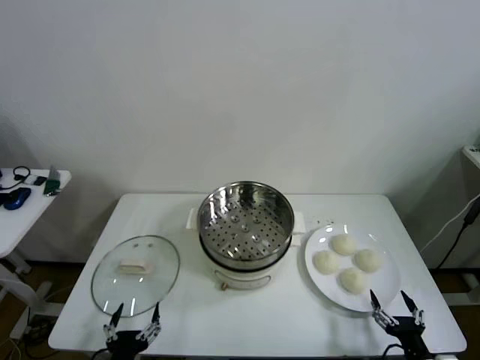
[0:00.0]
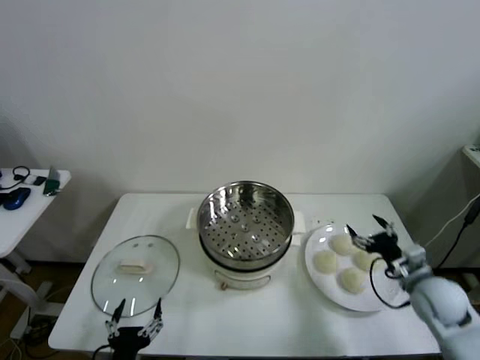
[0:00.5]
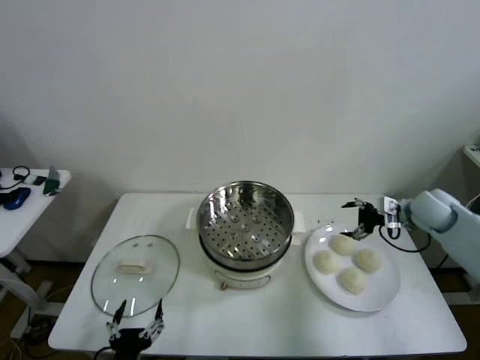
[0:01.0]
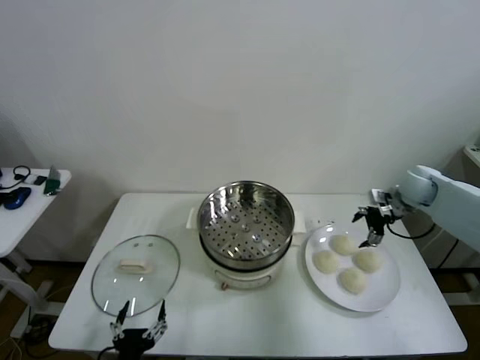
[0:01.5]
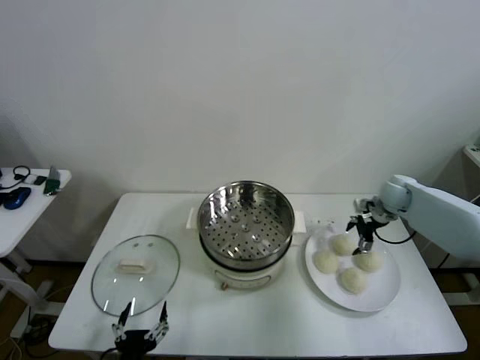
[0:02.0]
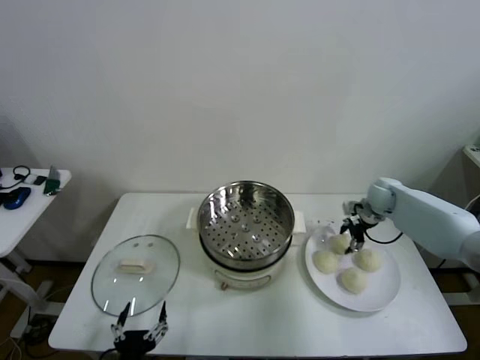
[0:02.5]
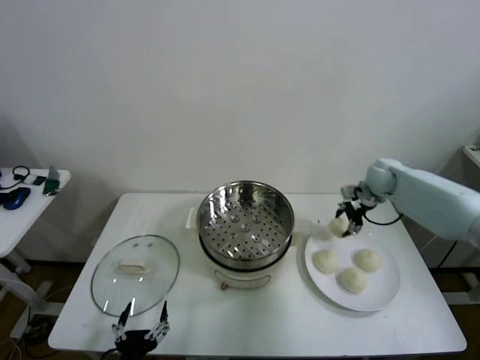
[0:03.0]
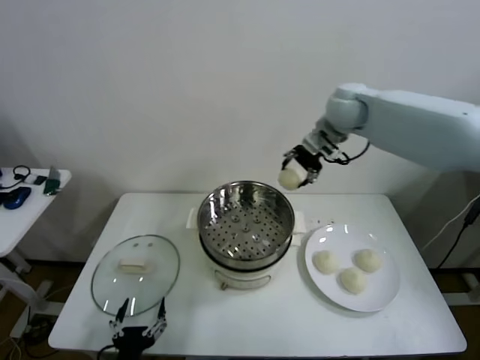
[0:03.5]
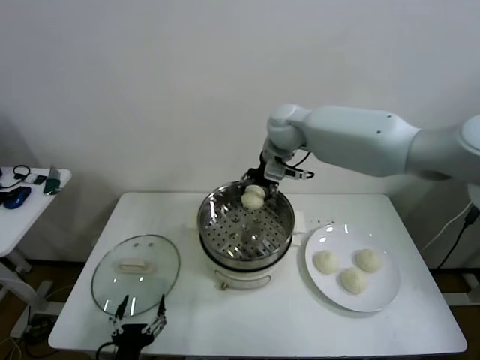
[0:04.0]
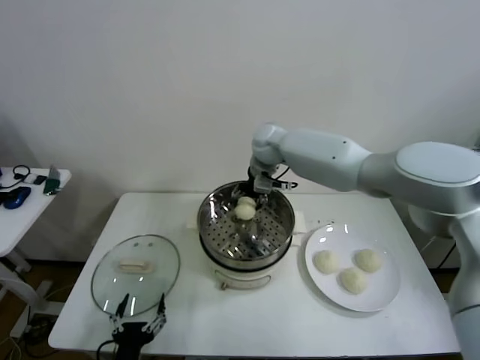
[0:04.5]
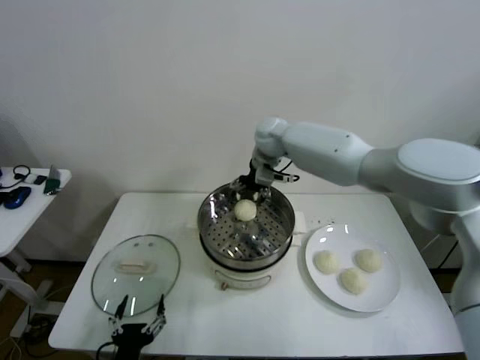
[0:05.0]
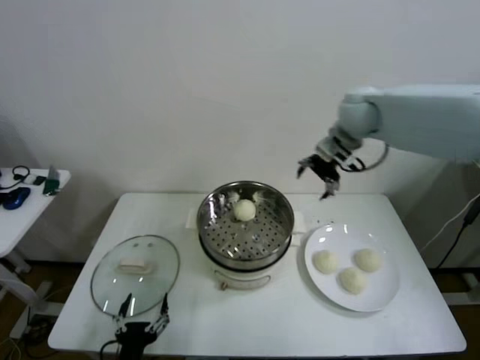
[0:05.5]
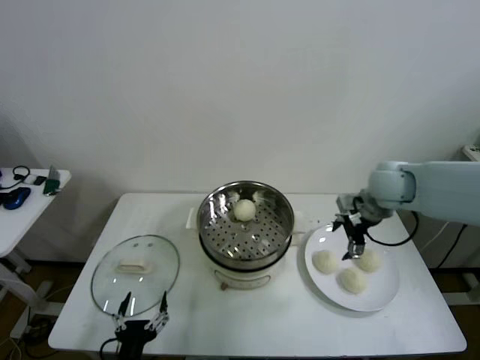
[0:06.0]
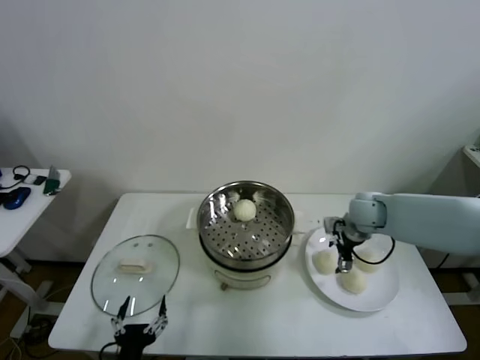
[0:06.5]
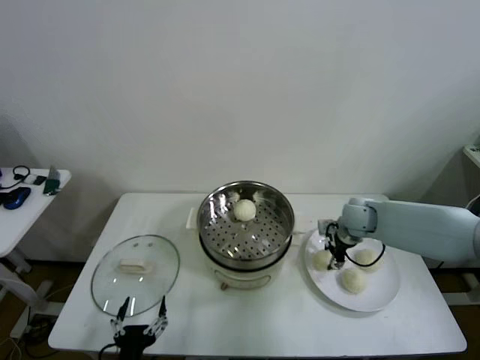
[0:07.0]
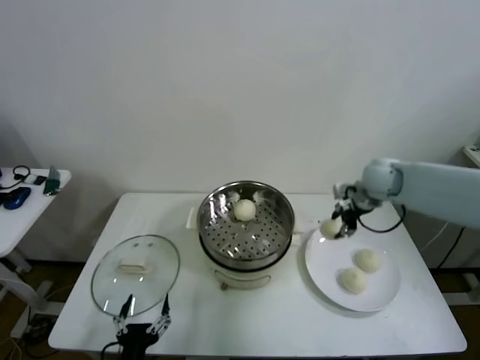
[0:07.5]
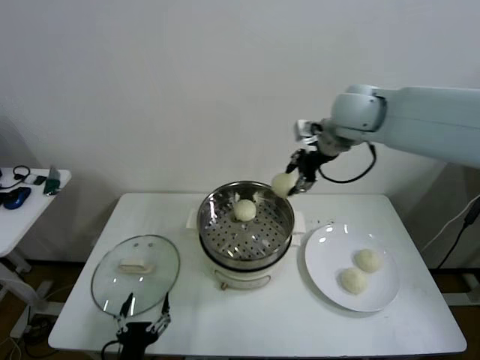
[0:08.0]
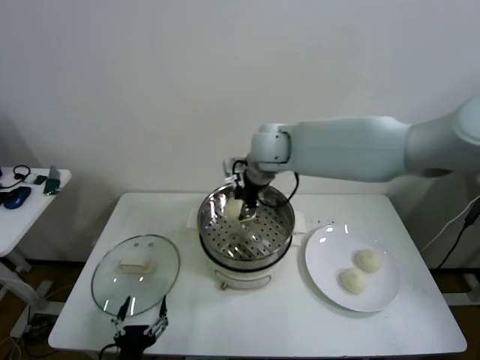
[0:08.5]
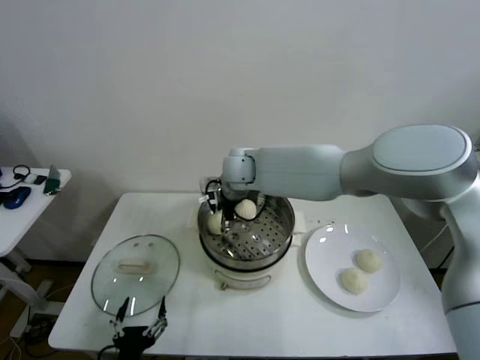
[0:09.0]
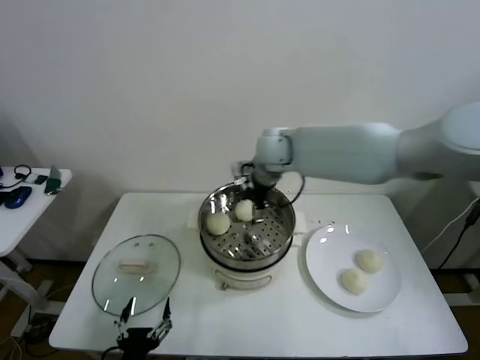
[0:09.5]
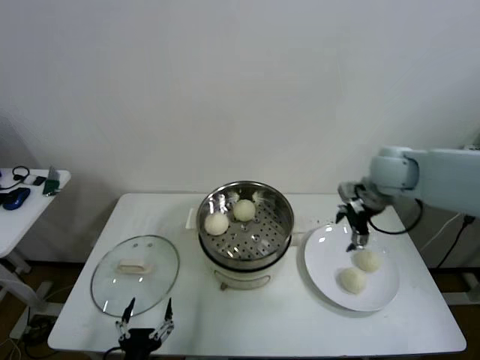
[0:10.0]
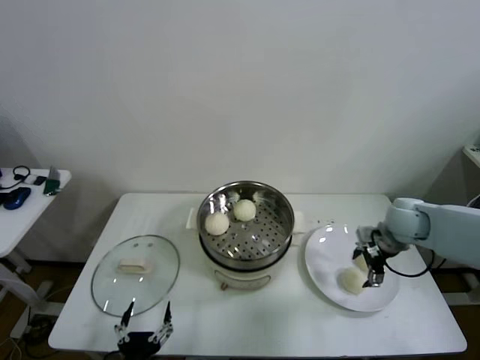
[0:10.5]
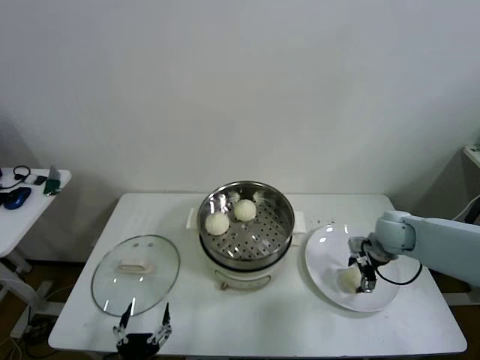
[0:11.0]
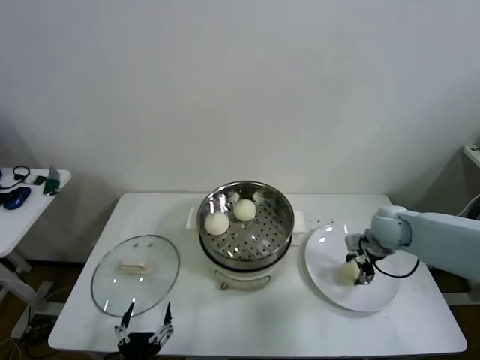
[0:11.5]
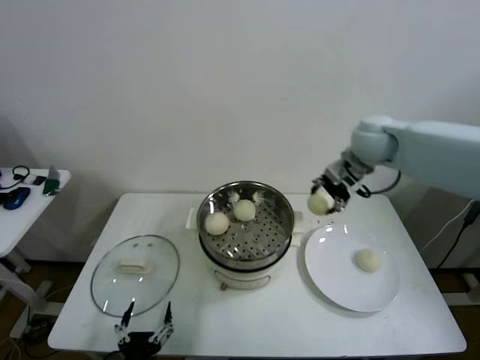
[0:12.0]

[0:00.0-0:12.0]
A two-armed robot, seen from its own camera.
Step, 0:00.0 to 0:02.0: Grasp the baozi in the plate with right gripper.
Step, 0:02.5 to 0:04.5: Place the baozi on the steamer with right gripper.
Step, 0:05.0 to 0:06.5: Grasp the baozi in the plate with right gripper.
Step, 0:07.0 to 0:09.0: Place the baozi on the steamer with right gripper.
Step, 0:09.5 to 0:11.0: Grasp the baozi in the plate with right gripper.
0:02.0 to 0:04.0: The right gripper heads to the left and upward, covering about 35 cm, and closes its fingers.
0:04.0 to 0:06.0: The right gripper heads to the right and backward, covering some 25 cm, and opens its fingers.
0:06.0 to 0:08.0: The right gripper heads upward and to the left, covering roughly 20 cm, and closes.
0:08.0 to 0:10.0: The right gripper travels to the right and downward by about 20 cm, and opens.
0:10.0 to 0:12.0: The right gripper moves upward and to the left, approximately 10 cm, and closes.

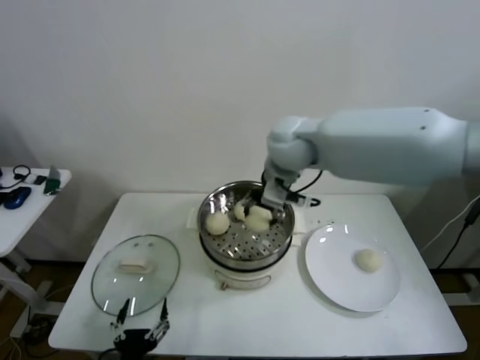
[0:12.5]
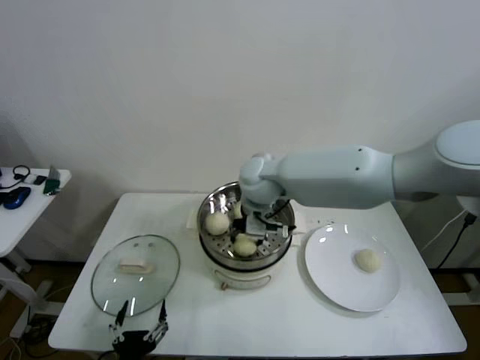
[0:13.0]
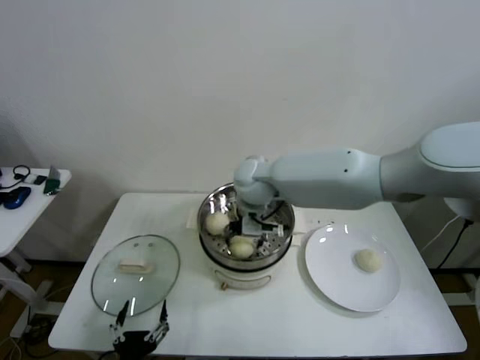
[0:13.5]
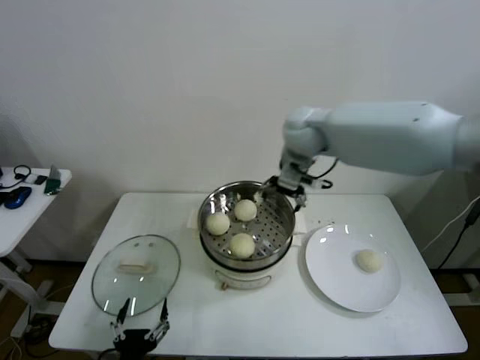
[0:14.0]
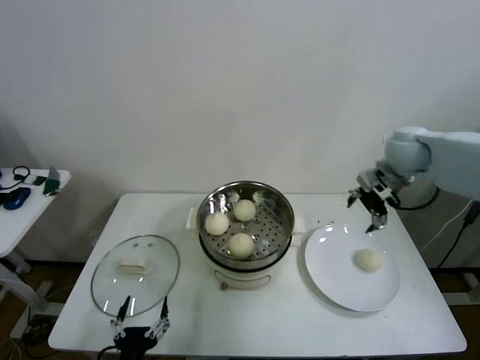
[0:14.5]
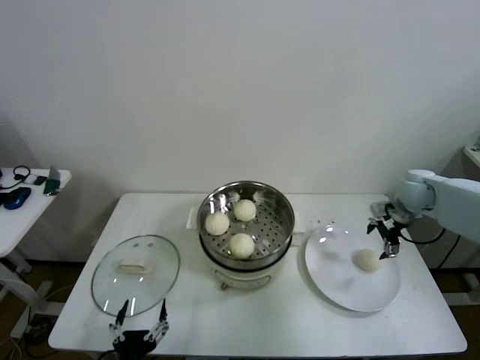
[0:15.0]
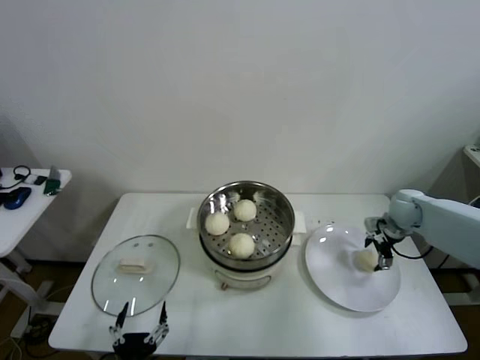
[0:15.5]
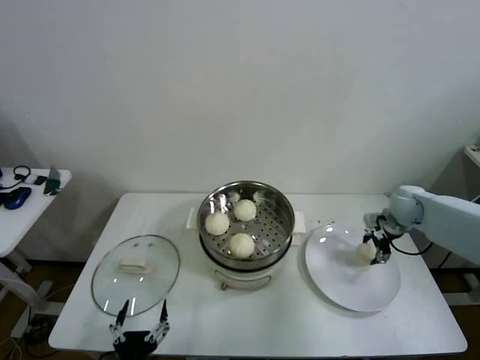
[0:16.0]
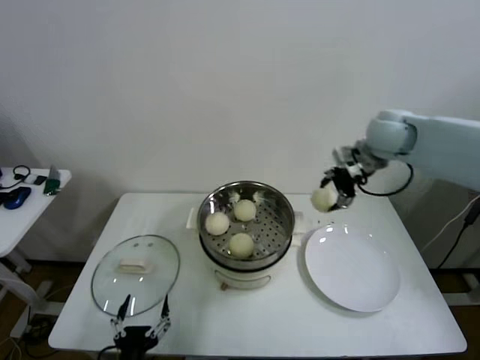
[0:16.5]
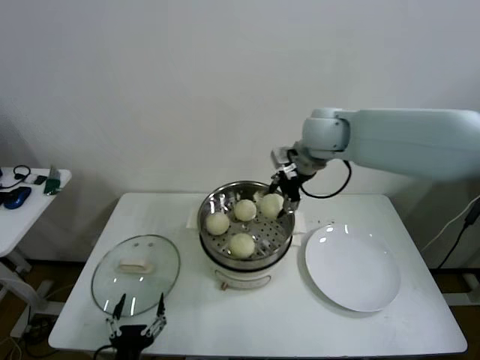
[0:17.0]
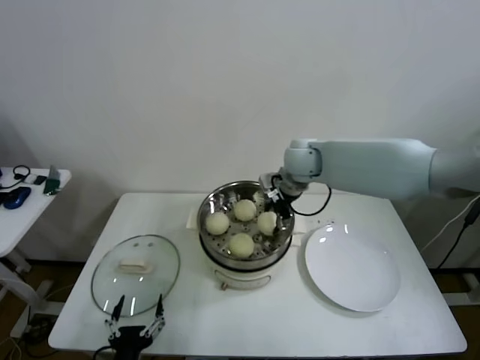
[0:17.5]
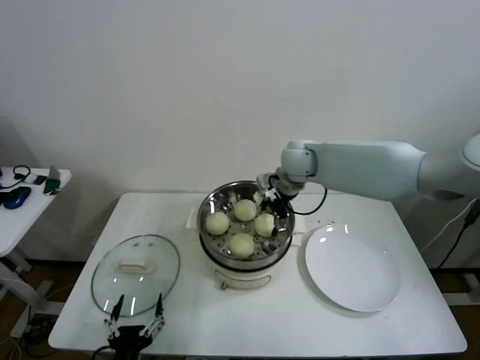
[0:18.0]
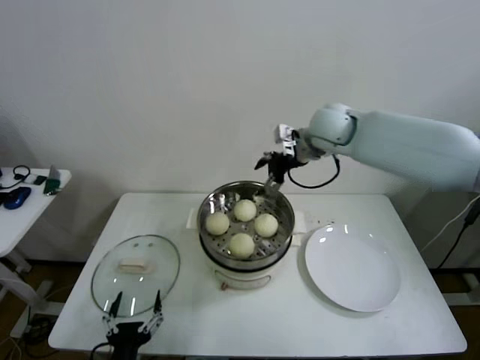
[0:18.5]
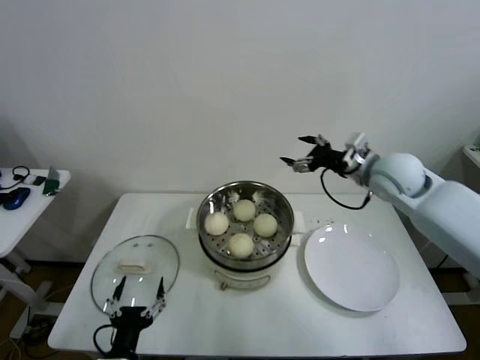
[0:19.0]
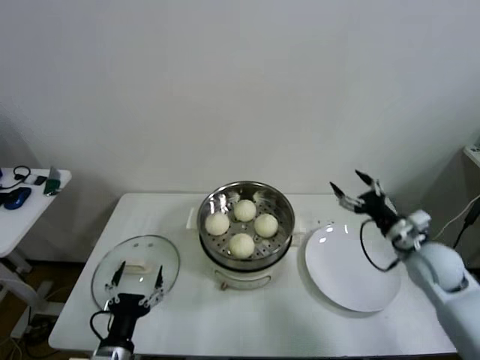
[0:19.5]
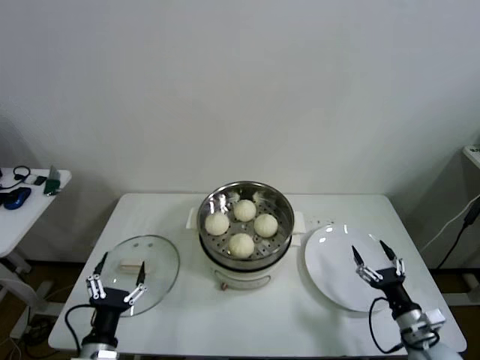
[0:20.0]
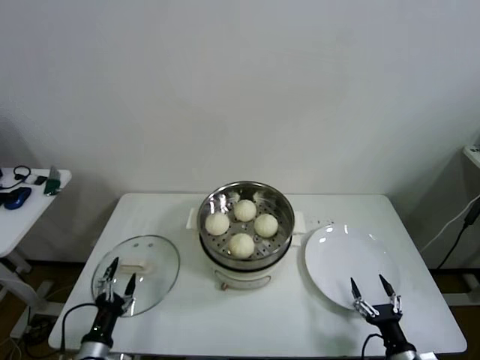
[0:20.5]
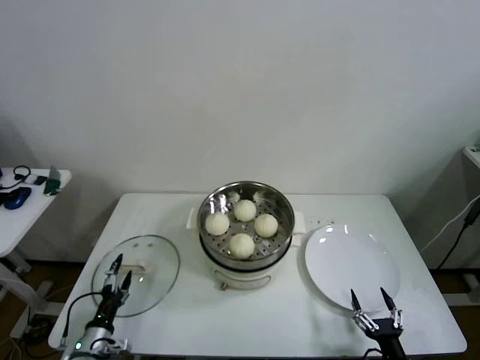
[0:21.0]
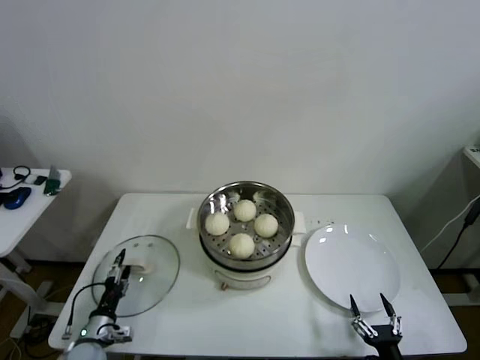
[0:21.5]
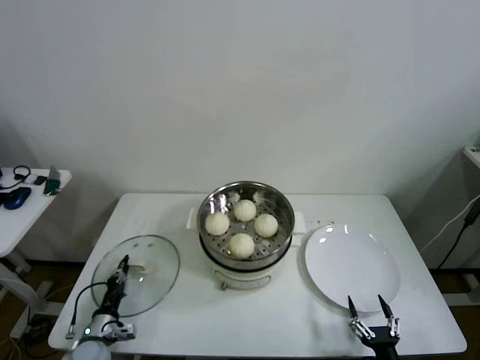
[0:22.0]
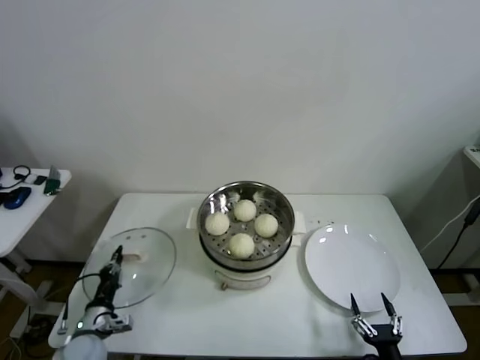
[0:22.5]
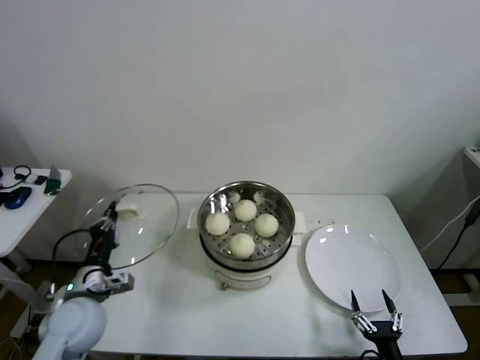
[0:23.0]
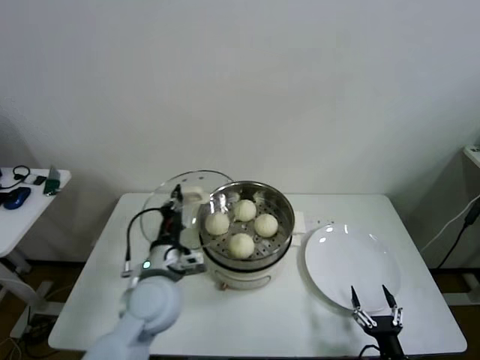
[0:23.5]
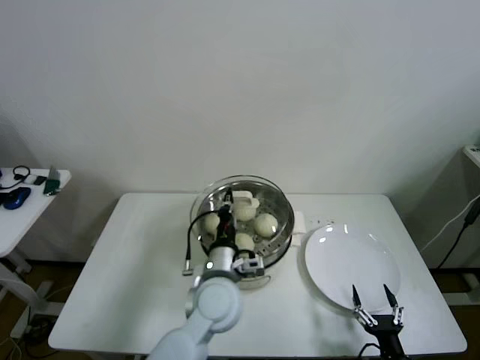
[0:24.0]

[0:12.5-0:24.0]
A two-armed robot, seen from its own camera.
Step, 0:13.5 to 0:15.5: Grasp the baozi in the plate with right gripper.
Step, 0:16.0 to 0:17.5: Place the baozi on the steamer with right gripper.
Step, 0:18.0 to 0:22.0: Grasp the pot lid with left gripper.
0:12.5 to 0:14.5: The right gripper goes roughly 30 cm to the right, and opens.
0:14.5 to 0:16.5: The right gripper is displaced to the left by approximately 10 cm, reaches roughly 20 cm downward, then returns, and closes its fingers.
0:16.5 to 0:18.5: The right gripper shifts about 10 cm to the left, and opens up.
0:18.5 to 0:20.0: The left gripper is displaced to the left and forward by roughly 10 cm; the right gripper goes some 50 cm downward, backward and to the right.
0:20.0 to 0:22.0: The left gripper is displaced downward, forward and to the left by some 20 cm, and closes its fingers. Meanwhile the right gripper heads backward, downward and to the left, covering about 15 cm.
0:22.0 to 0:24.0: The left gripper heads to the right and upward, covering approximately 40 cm.

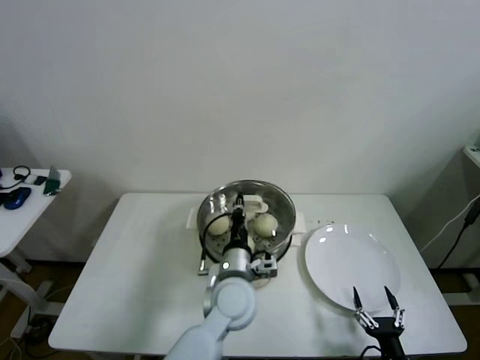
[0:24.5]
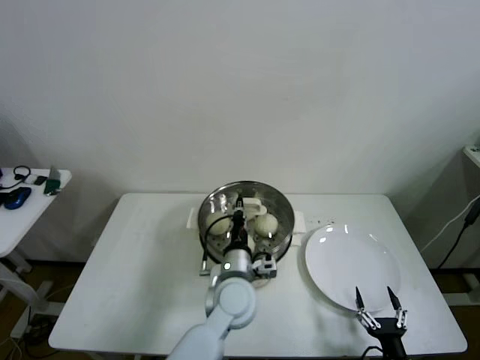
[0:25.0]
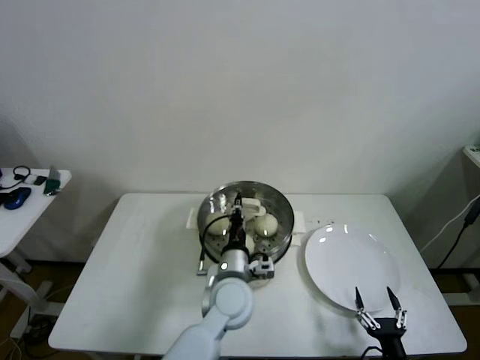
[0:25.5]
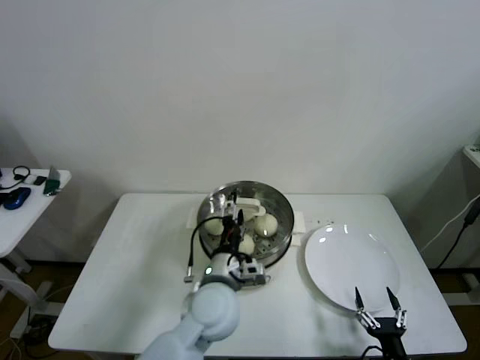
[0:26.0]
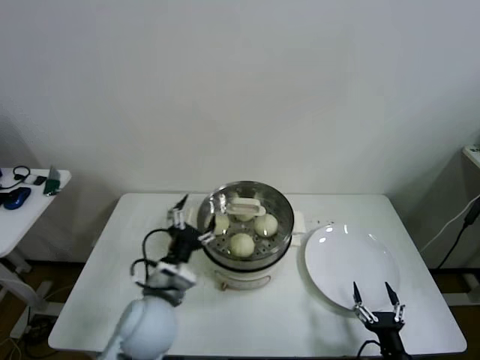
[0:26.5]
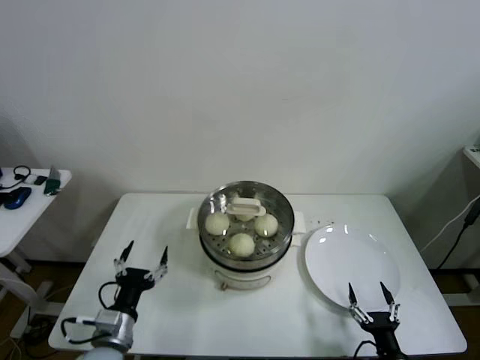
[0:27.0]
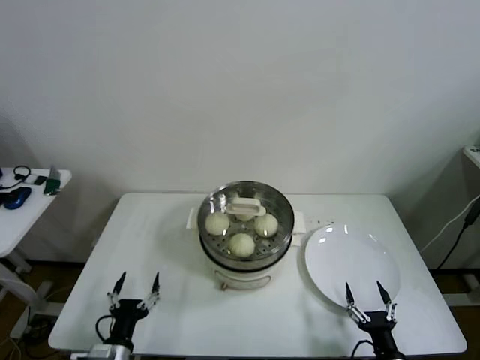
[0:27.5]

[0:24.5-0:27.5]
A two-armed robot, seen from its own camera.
0:24.5 to 0:26.0: The left gripper opens up.
0:26.0 to 0:27.5: The left gripper shifts approximately 30 cm to the left, downward and backward.
